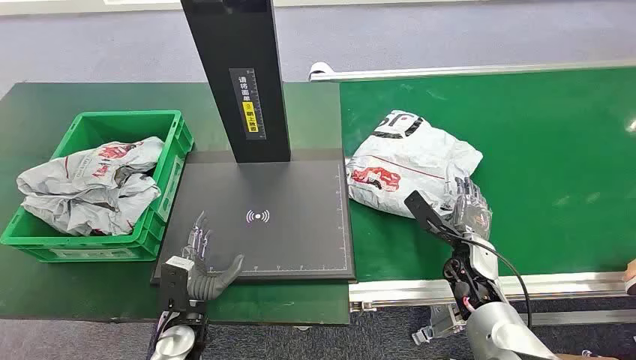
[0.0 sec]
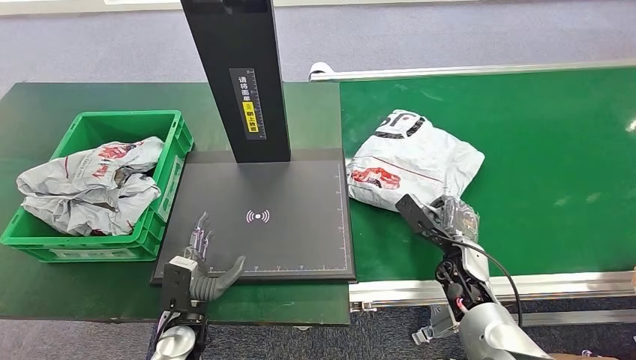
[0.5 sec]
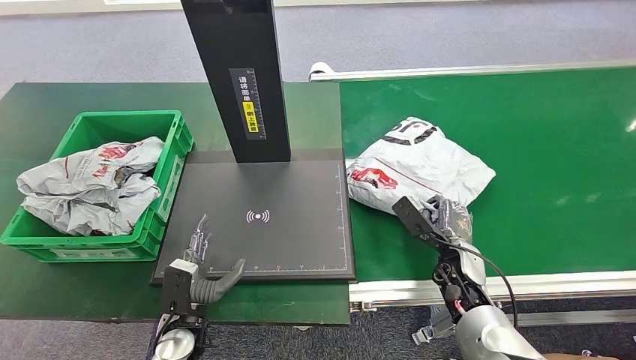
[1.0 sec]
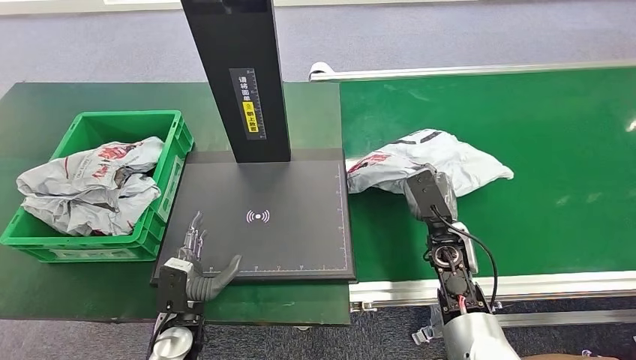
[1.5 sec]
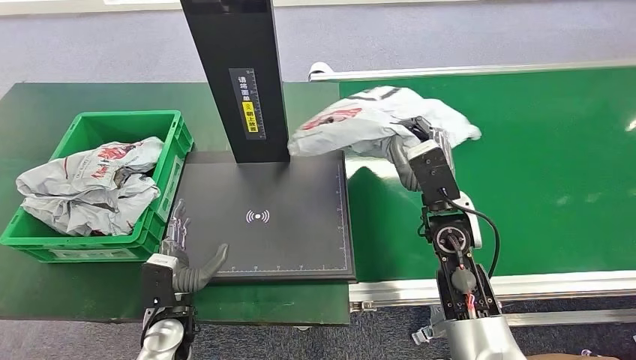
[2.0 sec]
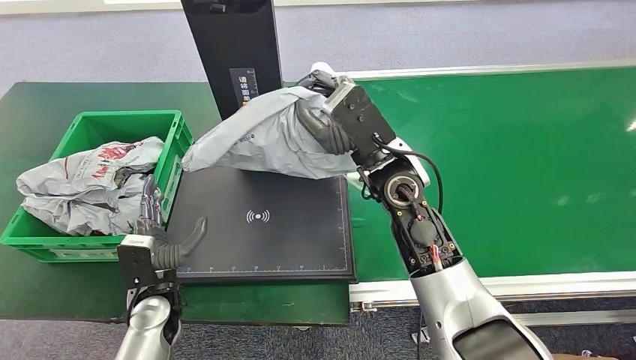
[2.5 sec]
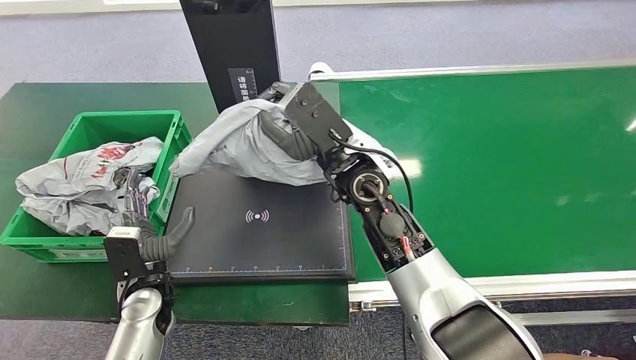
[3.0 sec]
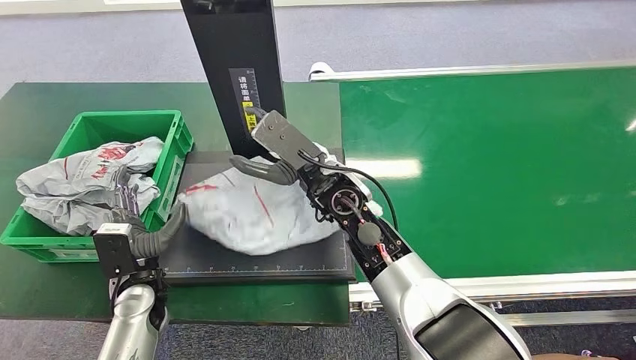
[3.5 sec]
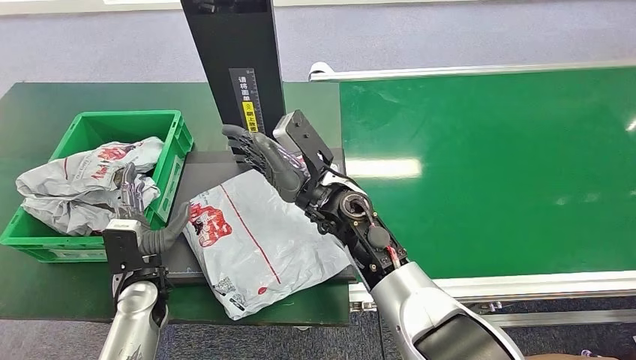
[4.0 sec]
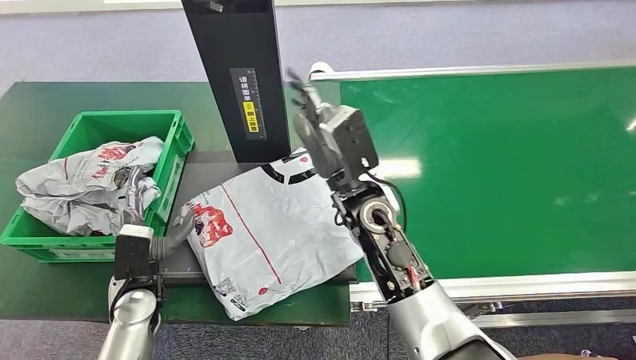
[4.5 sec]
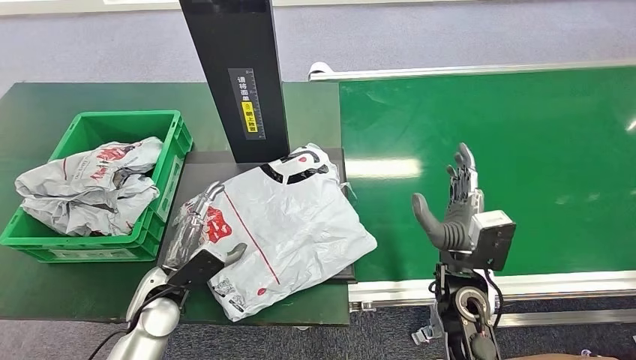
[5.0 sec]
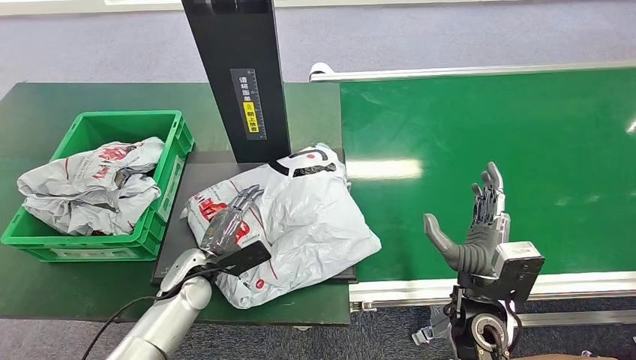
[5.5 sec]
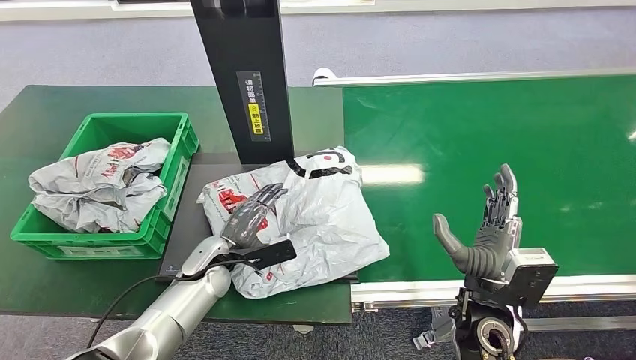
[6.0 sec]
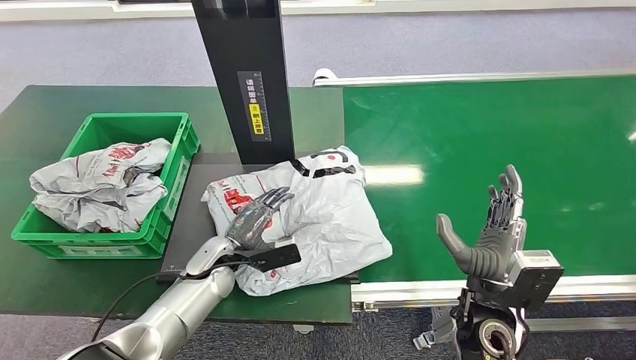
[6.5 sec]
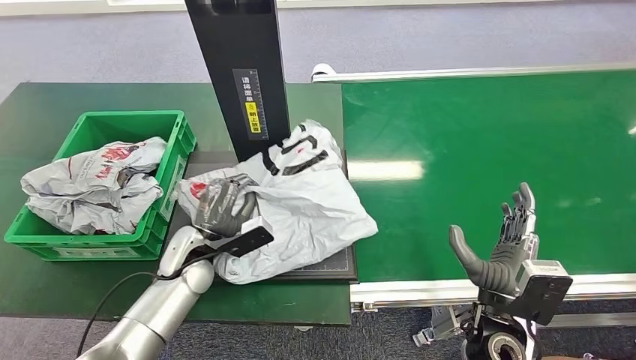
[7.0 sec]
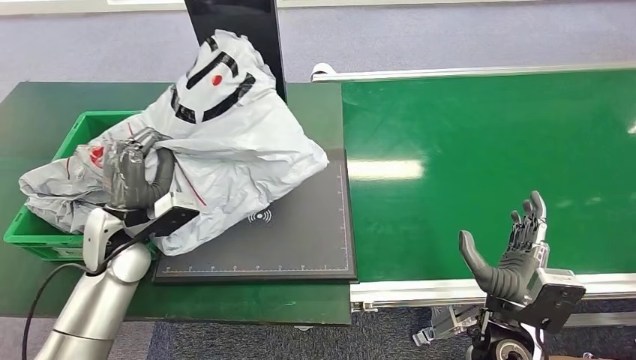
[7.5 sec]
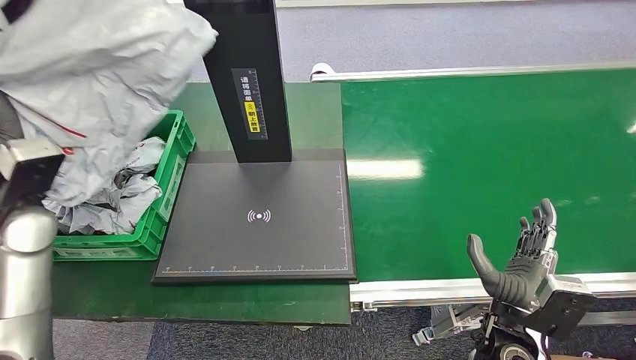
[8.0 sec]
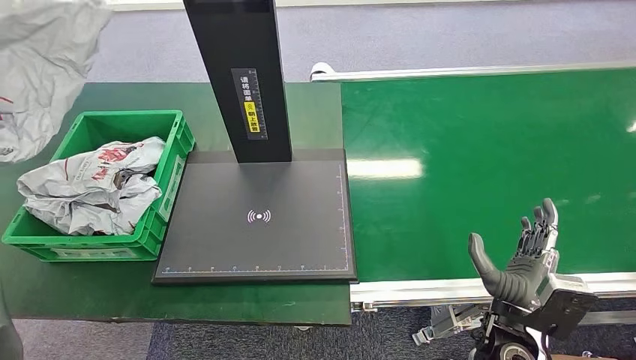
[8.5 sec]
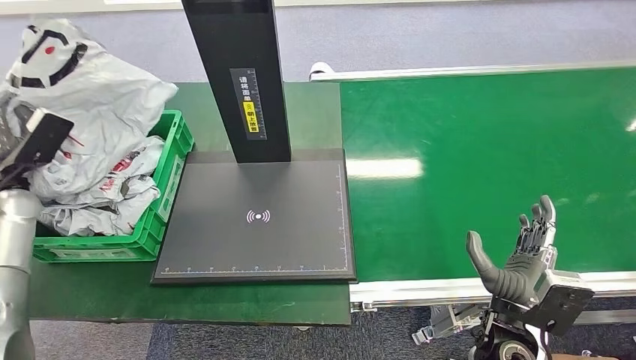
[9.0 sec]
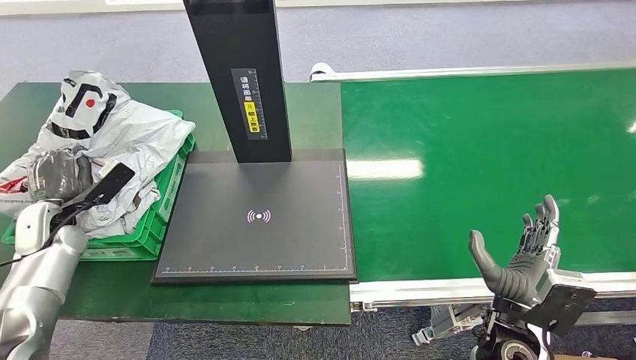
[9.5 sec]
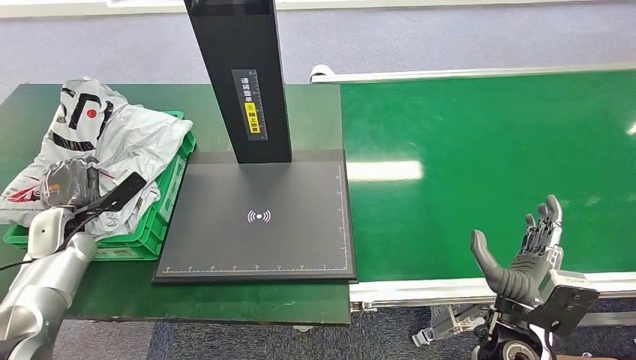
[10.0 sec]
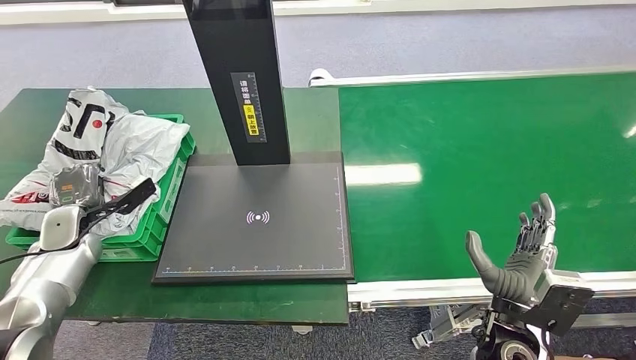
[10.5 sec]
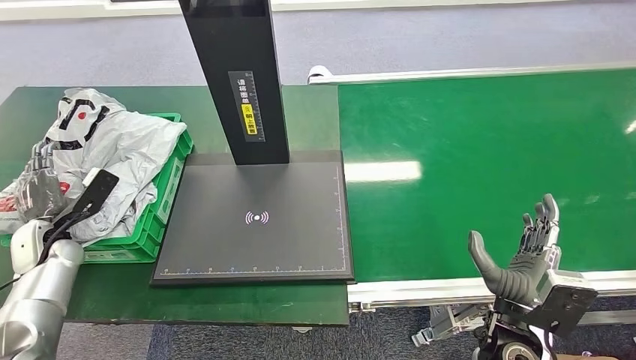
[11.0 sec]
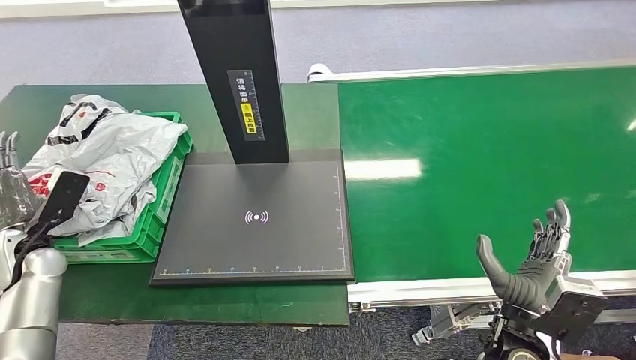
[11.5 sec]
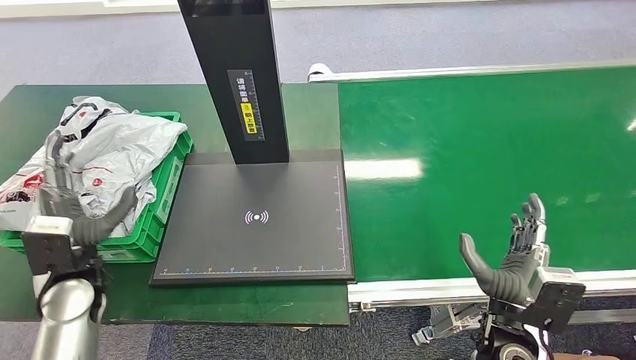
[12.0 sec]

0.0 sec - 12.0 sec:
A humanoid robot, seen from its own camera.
Step, 0.0 sec - 2.5 sec: Pick up the package from the conveyor belt.
Step, 3.0 sec - 4.5 sec: Place the package onto the inbound machine.
Step, 5.0 sec - 7.5 sec: Pick up the package from the inbound machine.
Step, 8.5 sec - 12.0 sec: Place the package into the parcel locker.
10.0 sec - 12.0 sec: The left hand heads to the right and backward, covering some 15 cm.

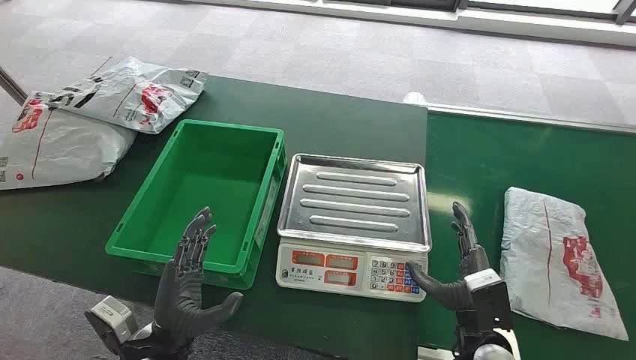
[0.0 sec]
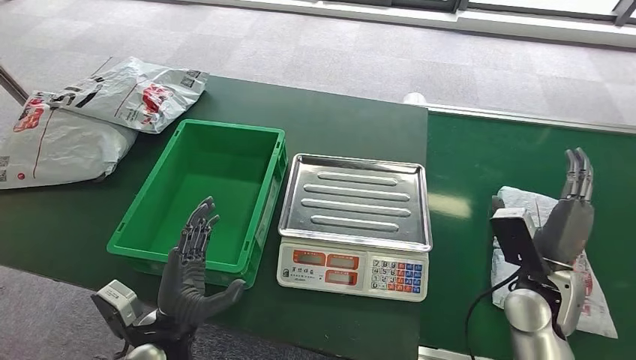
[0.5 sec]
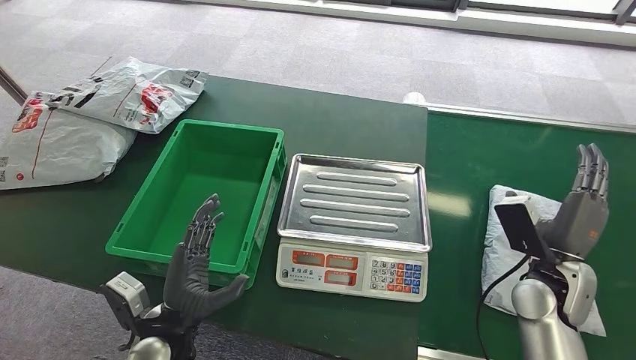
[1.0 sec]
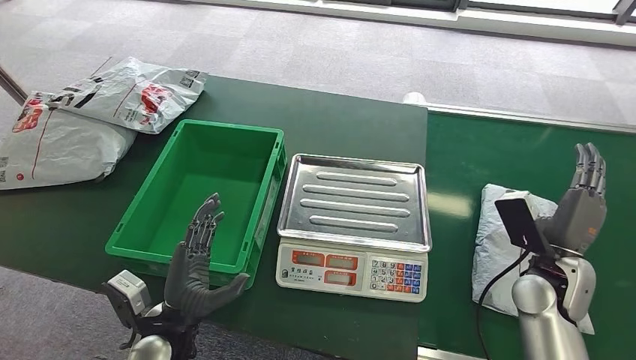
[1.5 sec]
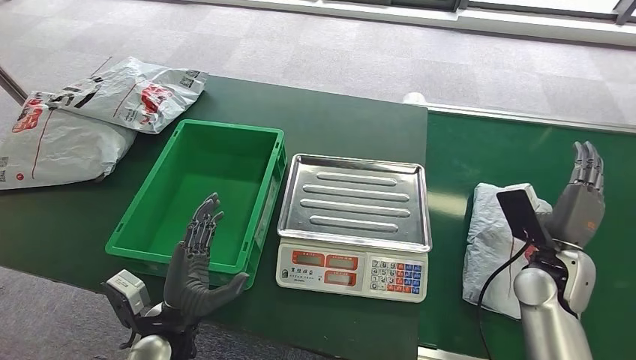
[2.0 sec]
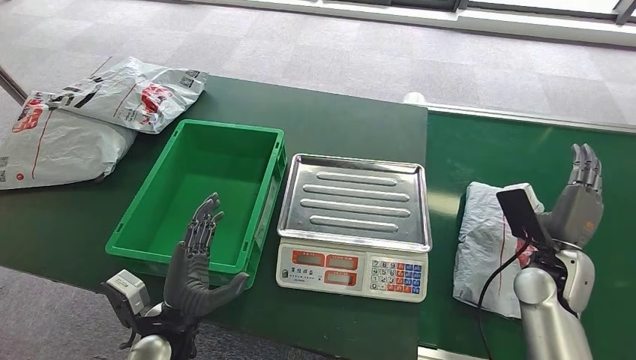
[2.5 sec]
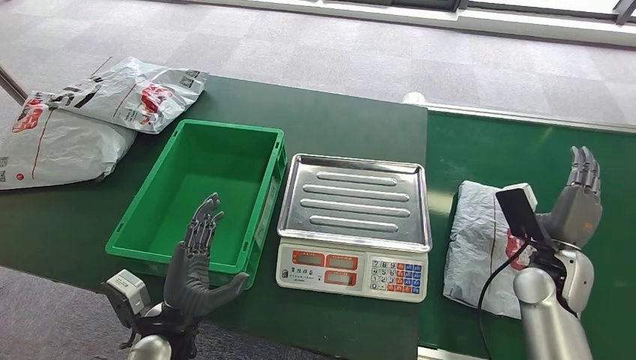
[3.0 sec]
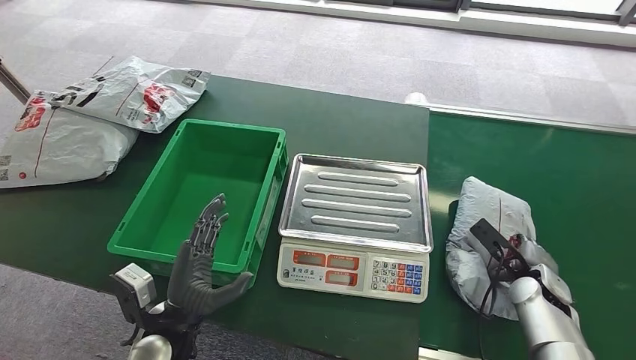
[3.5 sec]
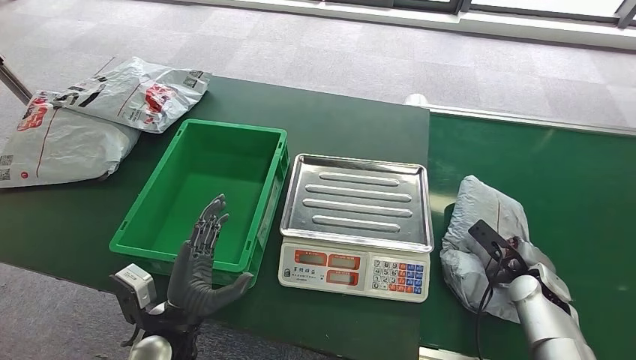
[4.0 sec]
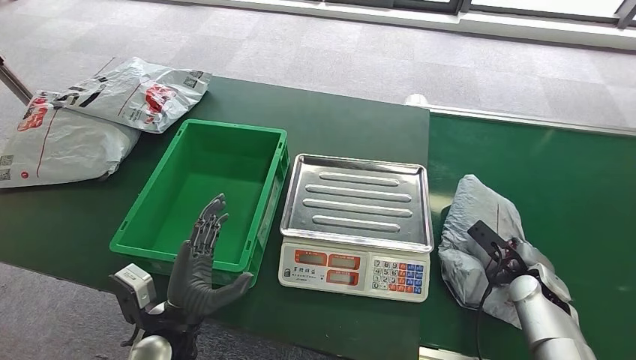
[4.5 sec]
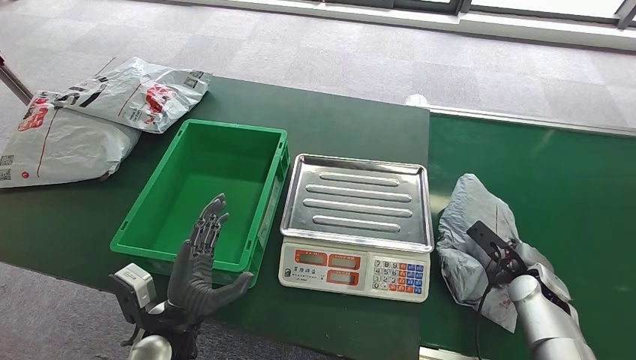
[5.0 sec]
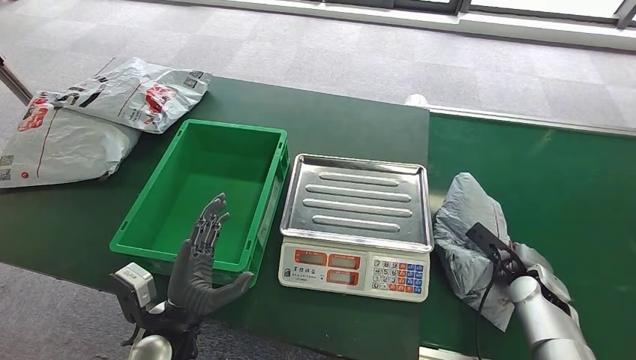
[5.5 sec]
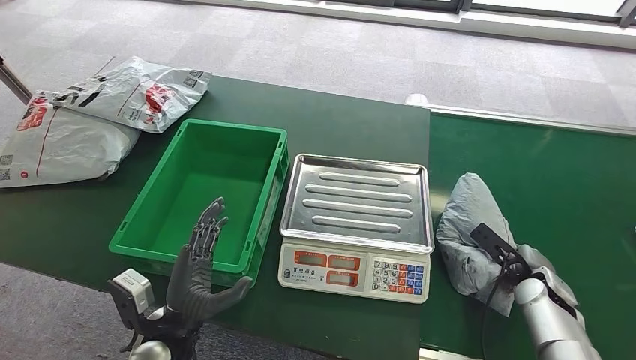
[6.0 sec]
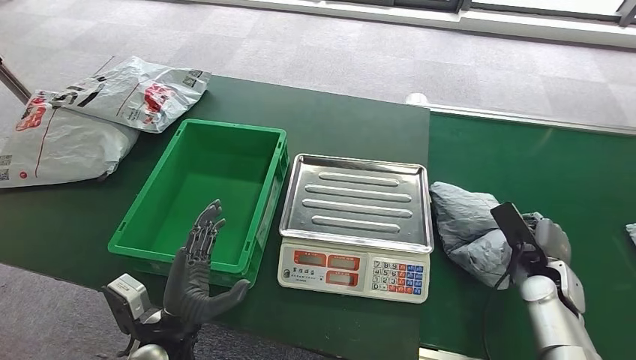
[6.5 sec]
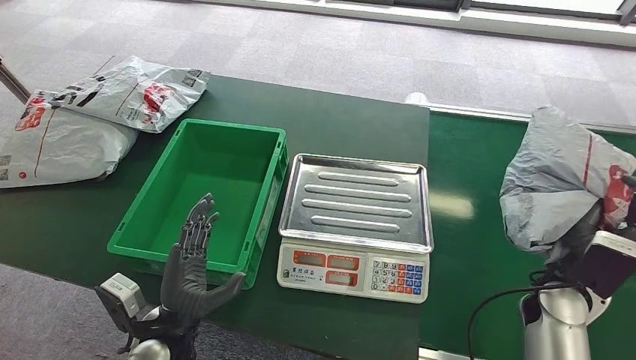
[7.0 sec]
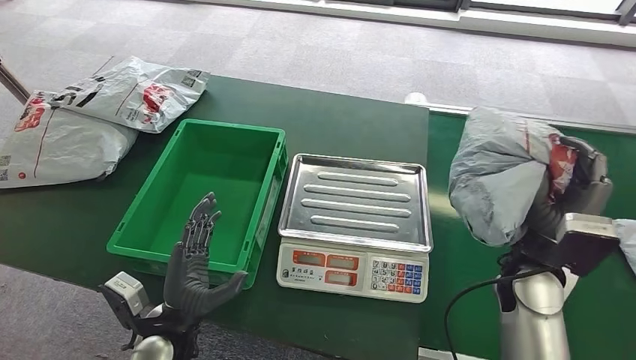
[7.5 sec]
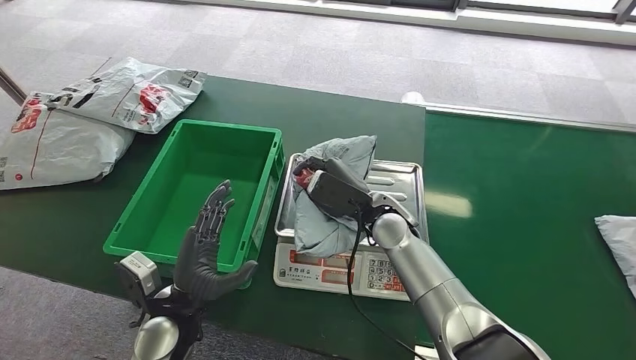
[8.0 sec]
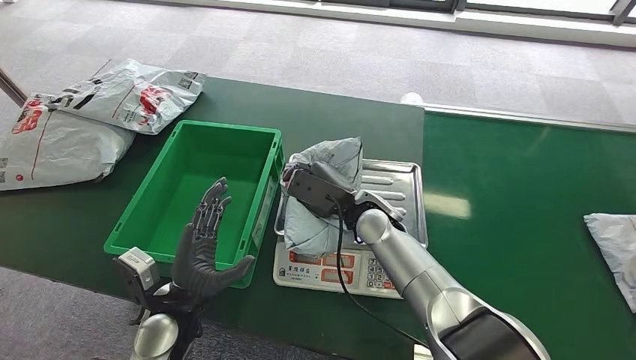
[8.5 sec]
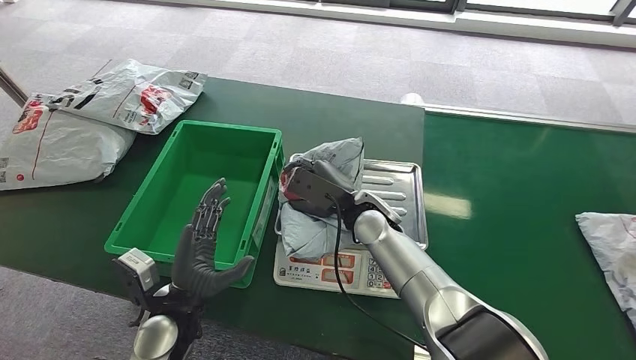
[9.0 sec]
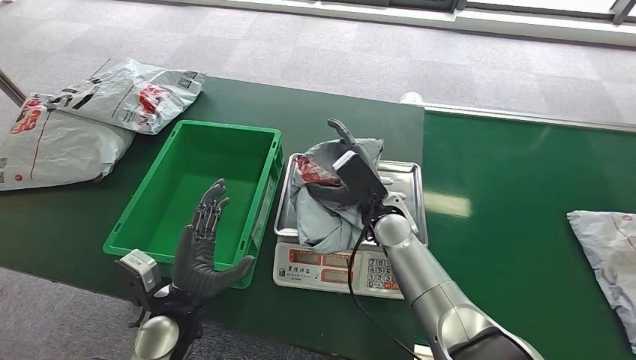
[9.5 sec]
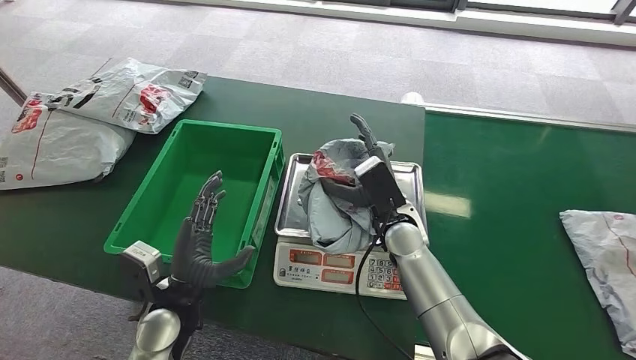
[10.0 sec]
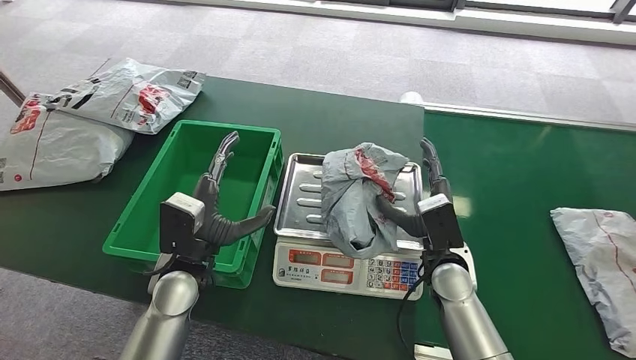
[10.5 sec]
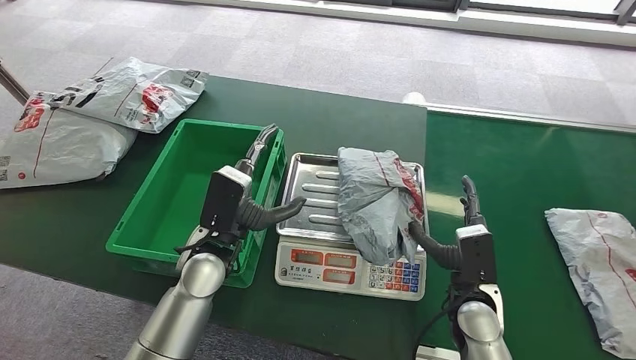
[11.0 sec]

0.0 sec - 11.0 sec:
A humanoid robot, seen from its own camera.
Step, 0.0 sec - 6.5 sec: Pick up the package from the conveyor belt.
2.0 sec - 3.5 sec: The right hand shifts roughly 10 cm downward.
3.5 sec - 5.5 sec: The hands stay close to where they were, moving slightly.
